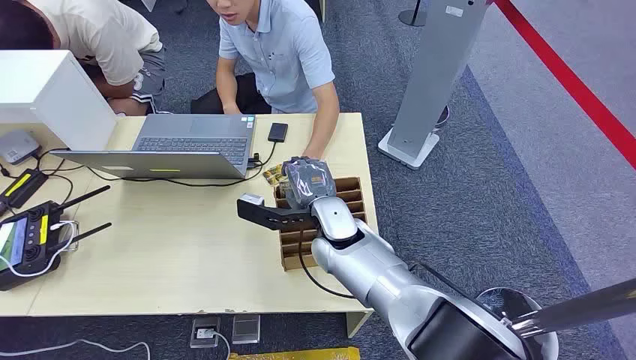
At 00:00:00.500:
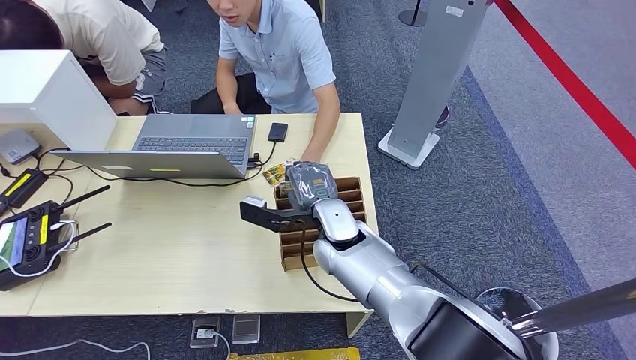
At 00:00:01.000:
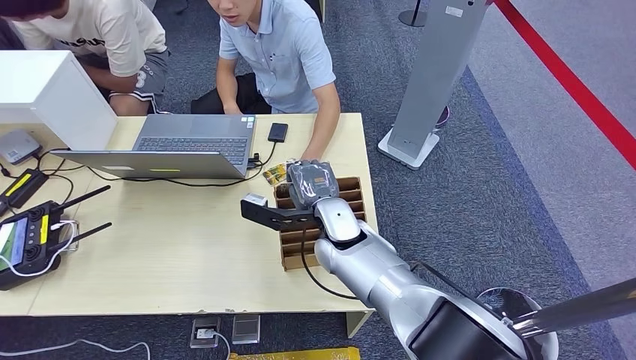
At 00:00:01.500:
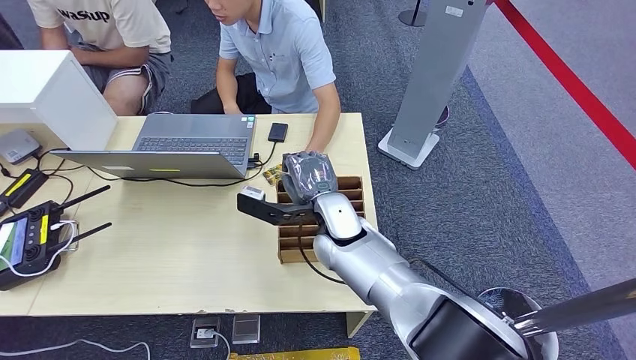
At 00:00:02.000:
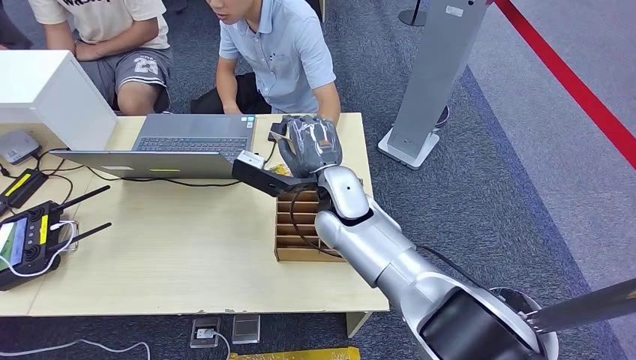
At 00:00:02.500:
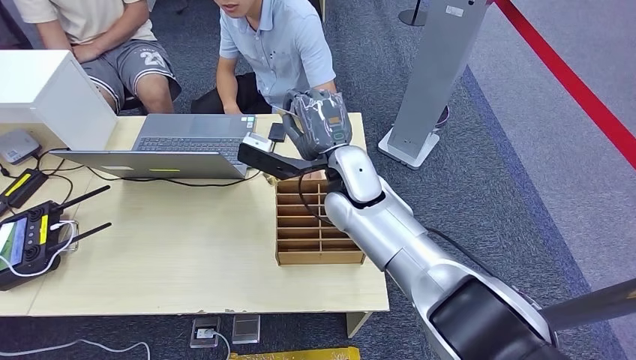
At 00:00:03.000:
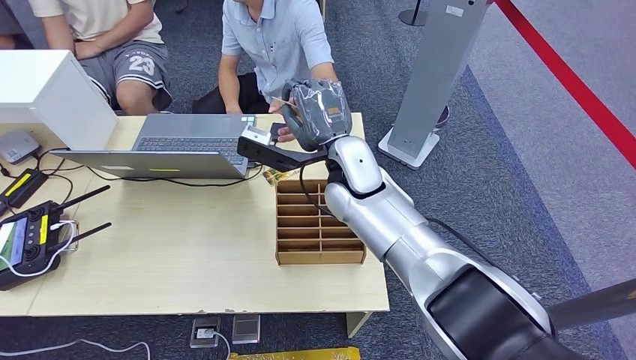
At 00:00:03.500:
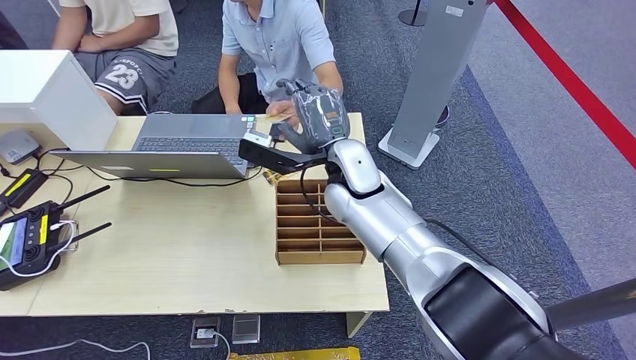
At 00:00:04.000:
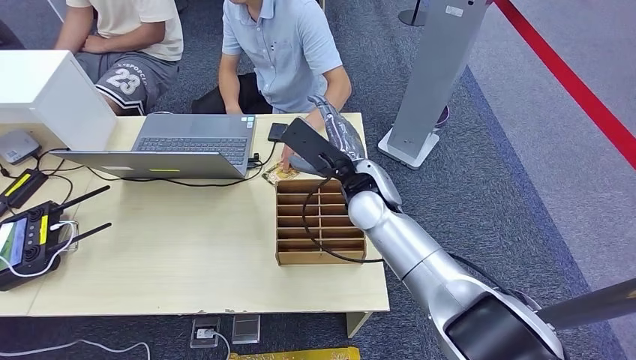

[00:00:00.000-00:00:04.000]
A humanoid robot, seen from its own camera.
Step, 00:00:00.000 to 00:00:01.500: Pick up the key card from the card box.
Step, 00:00:02.500 to 00:00:04.000: Hand the key card to the target.
00:00:02.000 to 00:00:04.000: The right hand shifts by about 5 cm.
